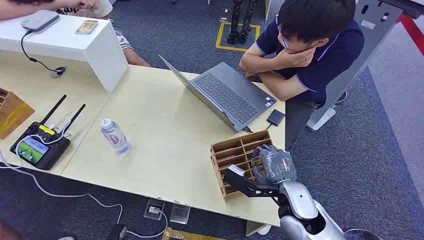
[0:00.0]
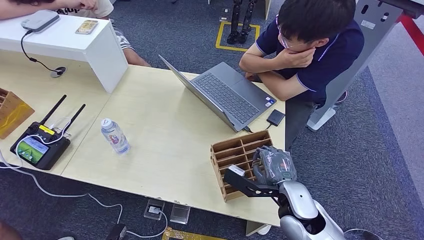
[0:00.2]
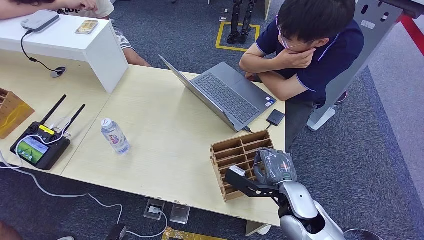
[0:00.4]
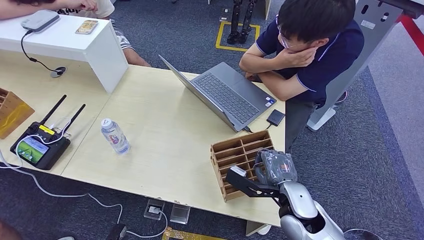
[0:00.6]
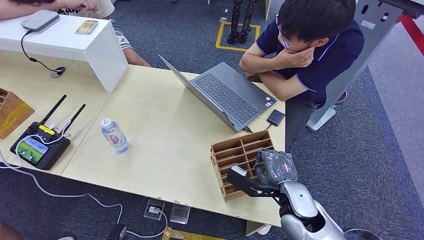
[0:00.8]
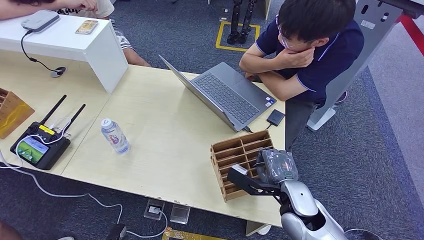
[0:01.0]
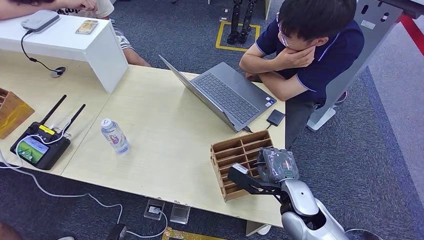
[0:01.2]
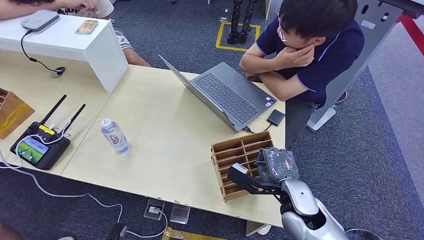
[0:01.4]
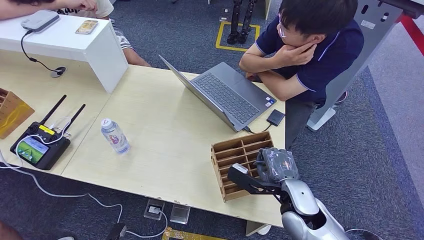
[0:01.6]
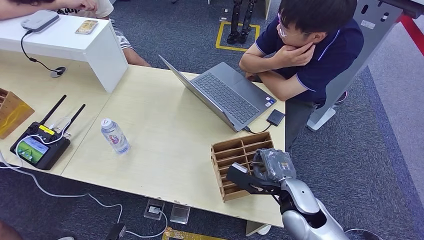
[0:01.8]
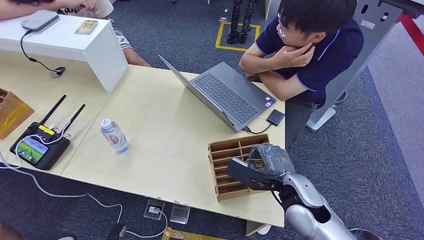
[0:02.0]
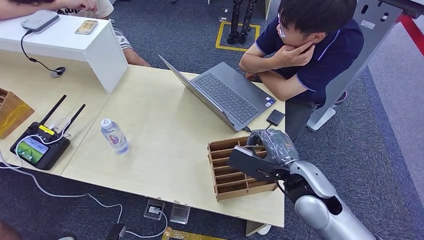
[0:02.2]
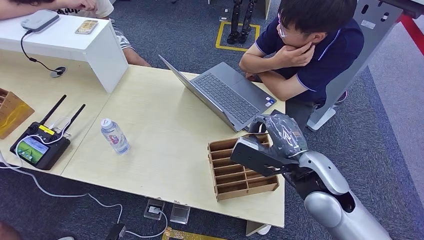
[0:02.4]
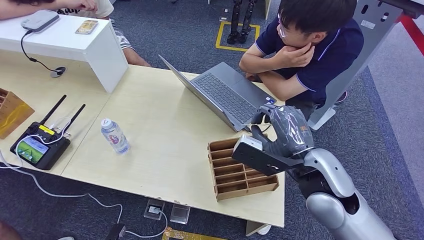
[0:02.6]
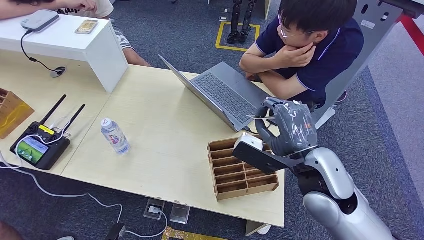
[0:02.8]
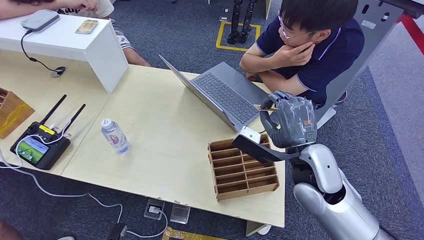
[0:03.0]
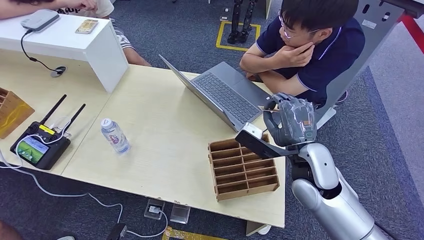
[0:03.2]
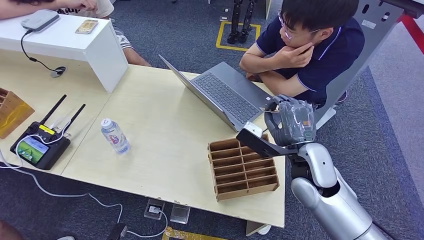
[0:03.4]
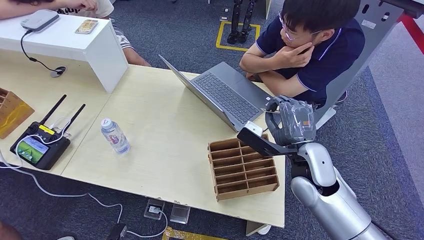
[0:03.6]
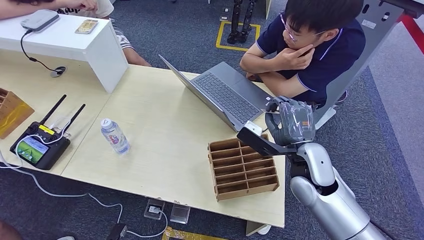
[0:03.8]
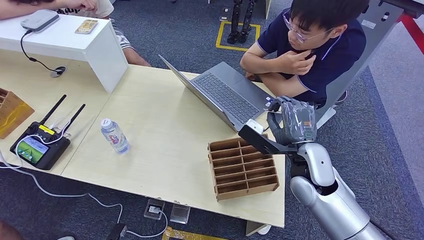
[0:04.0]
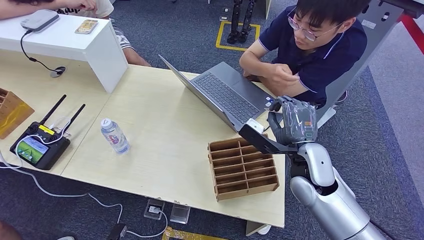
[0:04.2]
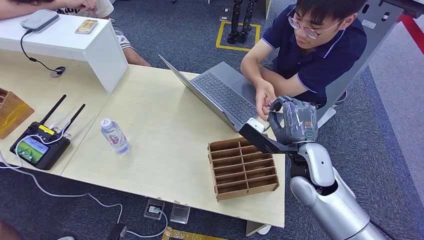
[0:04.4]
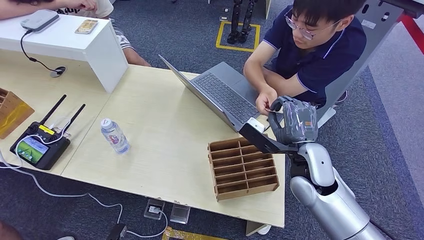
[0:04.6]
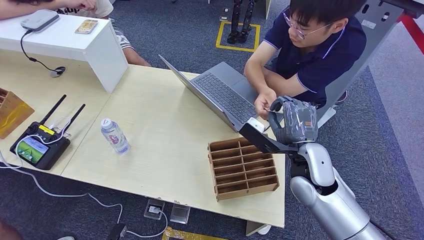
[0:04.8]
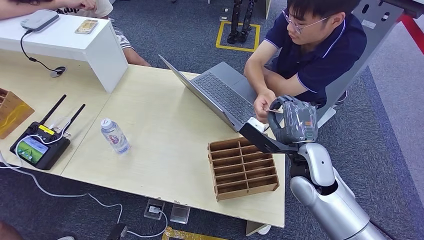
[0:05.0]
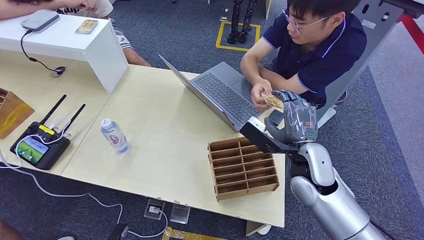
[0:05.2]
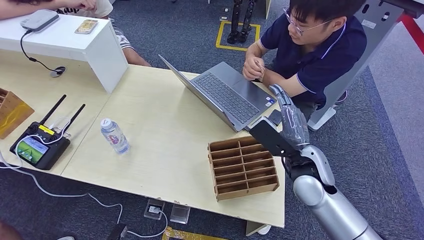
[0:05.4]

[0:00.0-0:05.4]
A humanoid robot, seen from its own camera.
Step, 0:00.0 to 0:02.2: Pick up the key card from the card box.
Step, 0:02.8 to 0:05.4: Hand the key card to the target.
0:01.4 to 0:02.8: The right hand moves upward, roughly 15 cm.
0:02.8 to 0:04.0: The right hand travels downward by about 5 cm.
